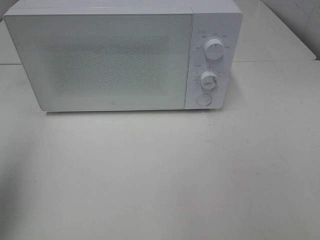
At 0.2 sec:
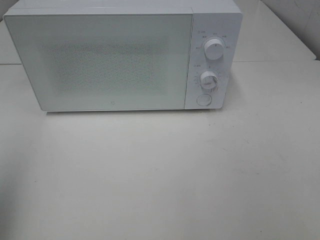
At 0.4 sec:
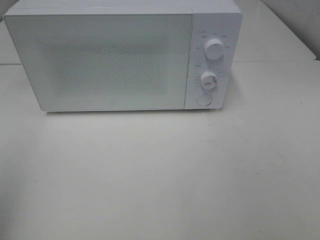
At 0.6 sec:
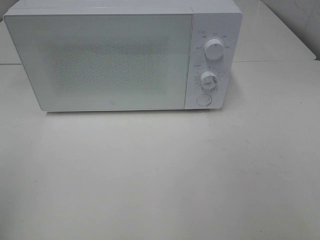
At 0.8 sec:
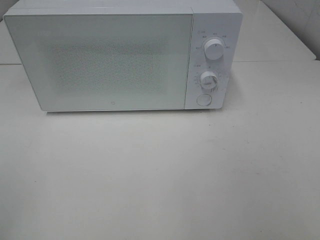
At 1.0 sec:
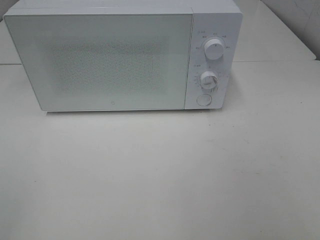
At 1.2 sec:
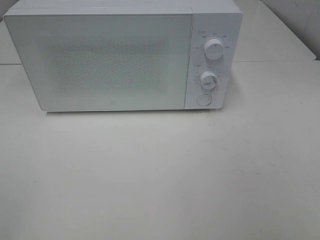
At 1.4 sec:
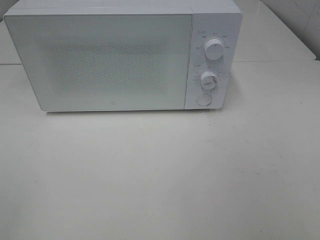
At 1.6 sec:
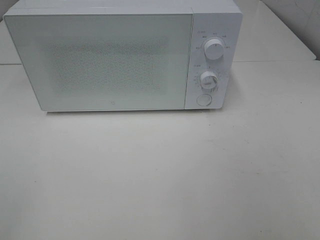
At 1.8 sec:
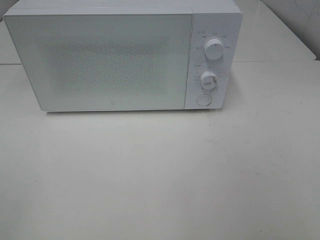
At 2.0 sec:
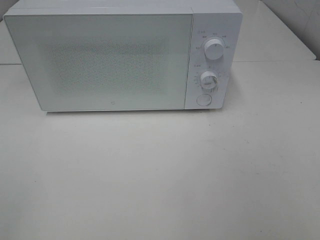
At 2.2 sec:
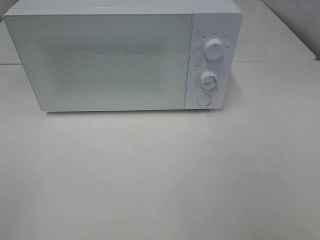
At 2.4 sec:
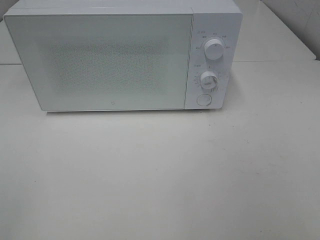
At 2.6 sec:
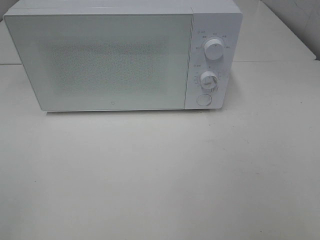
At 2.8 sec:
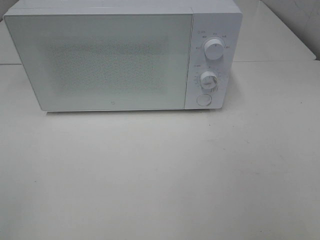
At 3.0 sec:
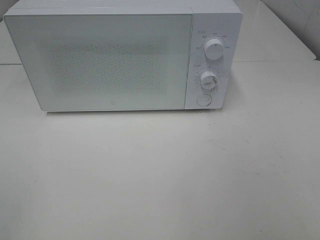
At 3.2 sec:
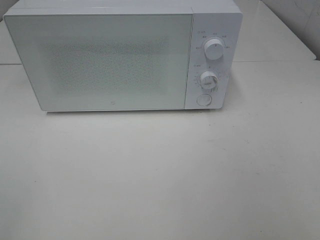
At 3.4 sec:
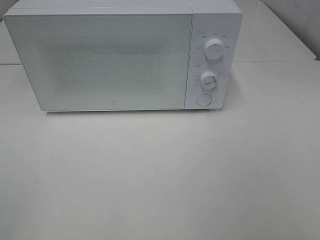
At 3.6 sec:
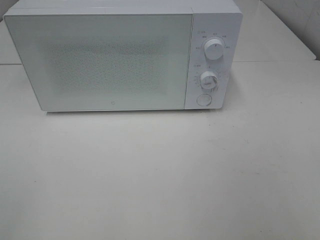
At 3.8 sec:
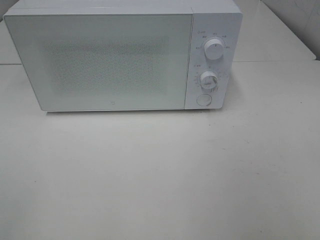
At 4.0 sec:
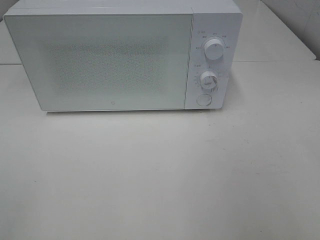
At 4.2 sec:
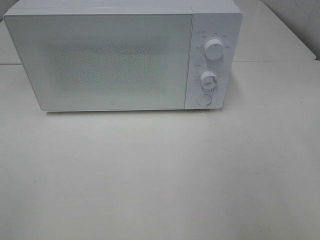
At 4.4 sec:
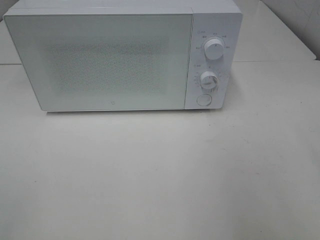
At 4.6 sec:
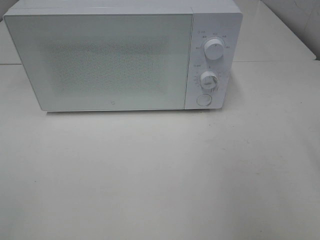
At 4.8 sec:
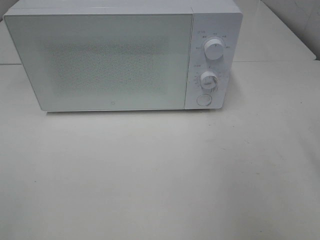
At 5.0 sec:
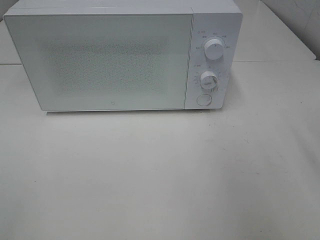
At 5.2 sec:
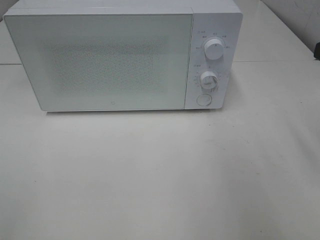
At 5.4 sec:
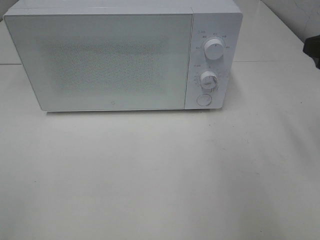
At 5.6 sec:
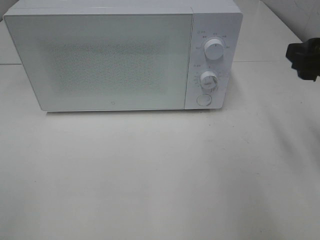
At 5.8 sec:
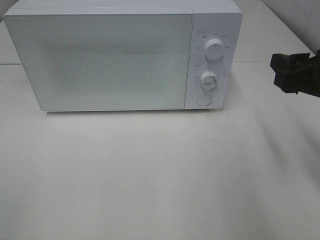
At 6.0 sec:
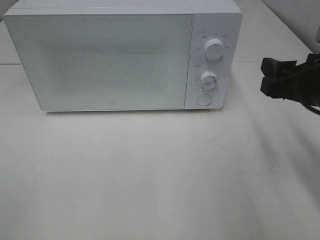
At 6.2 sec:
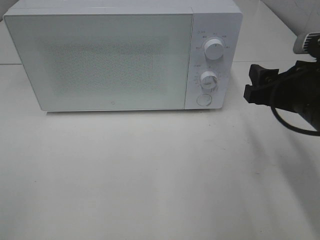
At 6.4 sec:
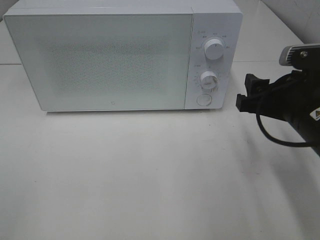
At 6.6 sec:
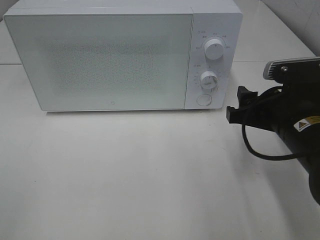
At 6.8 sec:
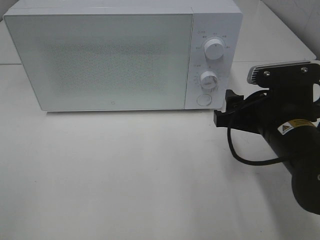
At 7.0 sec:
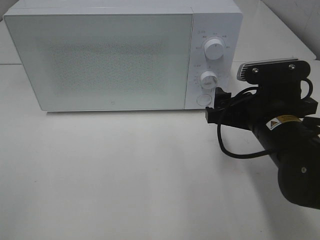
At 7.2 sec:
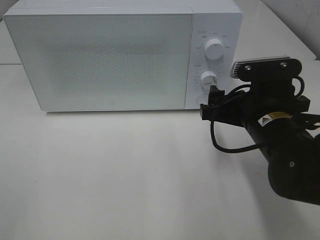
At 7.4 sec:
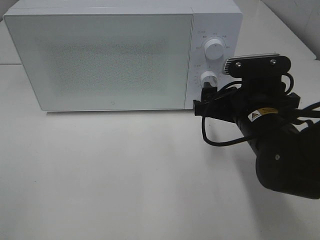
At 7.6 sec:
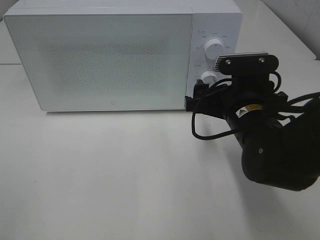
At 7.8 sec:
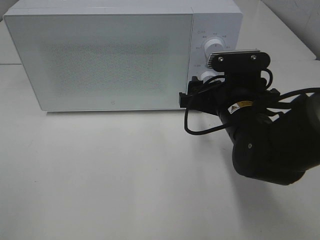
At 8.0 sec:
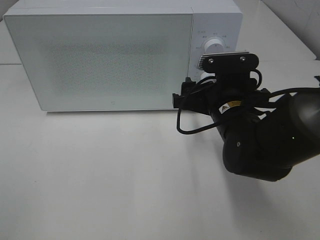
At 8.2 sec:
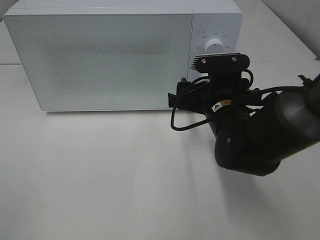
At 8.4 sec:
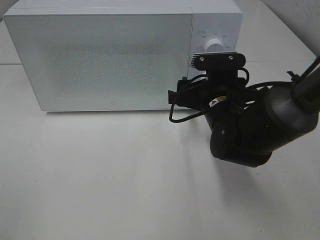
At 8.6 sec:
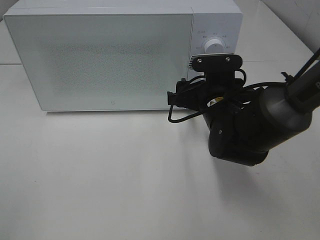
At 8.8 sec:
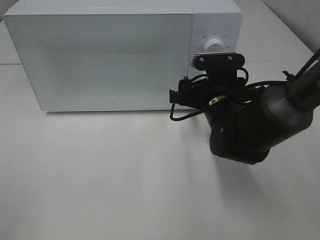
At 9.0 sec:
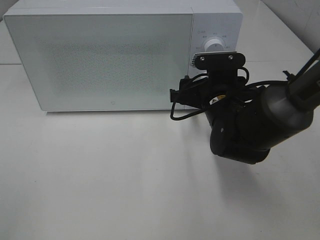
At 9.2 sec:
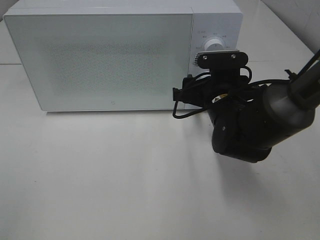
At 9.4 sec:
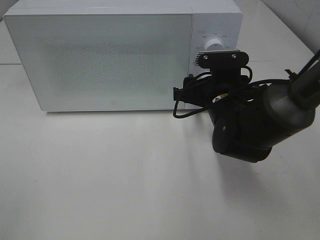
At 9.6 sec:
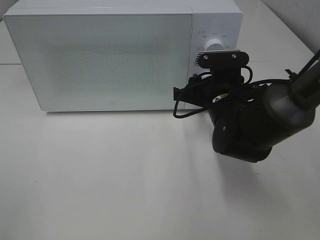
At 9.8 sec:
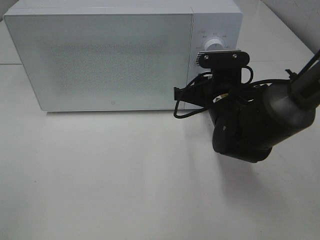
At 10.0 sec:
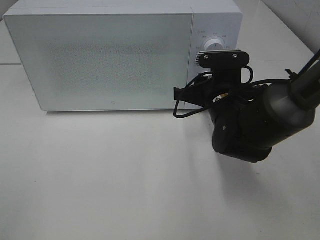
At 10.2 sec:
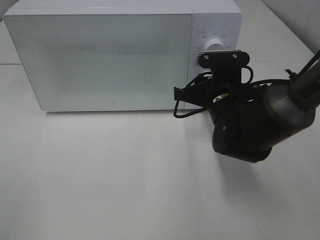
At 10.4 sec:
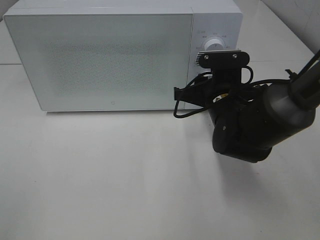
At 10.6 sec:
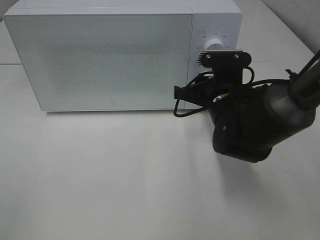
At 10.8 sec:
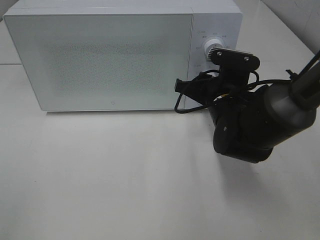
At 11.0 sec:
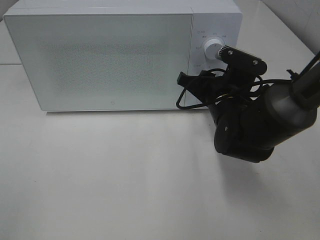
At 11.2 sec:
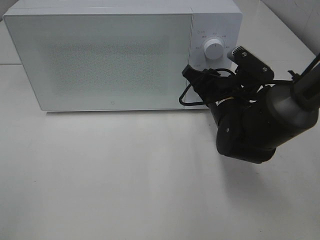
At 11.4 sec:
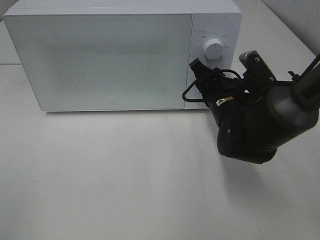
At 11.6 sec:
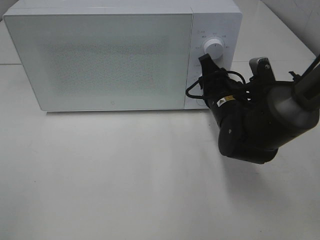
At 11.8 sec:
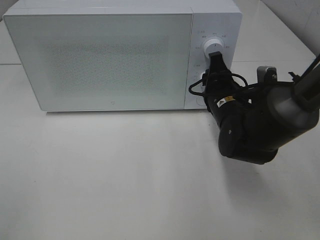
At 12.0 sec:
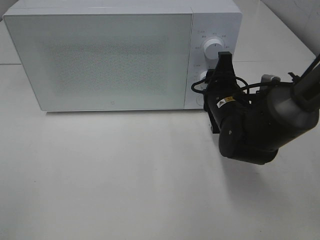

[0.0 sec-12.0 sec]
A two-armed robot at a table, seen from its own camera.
Task of the whole recording: Heat Sandwich.
0.0 sec to 1.6 sec: The left gripper is displaced backward by approximately 15 cm.
1.6 sec to 3.0 sec: Both grippers stay put.
4.4 sec to 6.0 sec: The right gripper is displaced forward, downward and to the left by roughly 15 cm.
6.0 sec to 7.6 sec: The right gripper shifts about 10 cm to the left and downward.
7.6 sec to 9.0 sec: The right gripper travels forward by about 5 cm.
9.0 sec to 10.4 sec: The right gripper closes.

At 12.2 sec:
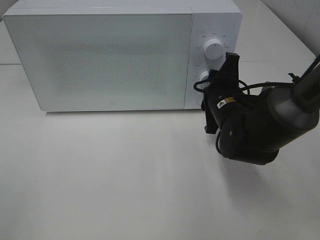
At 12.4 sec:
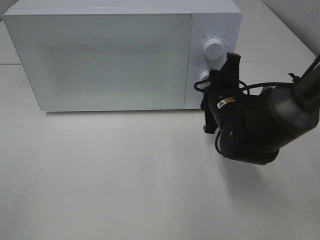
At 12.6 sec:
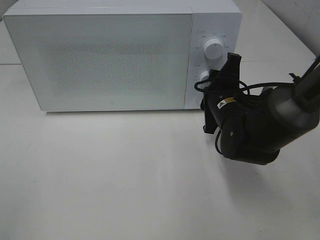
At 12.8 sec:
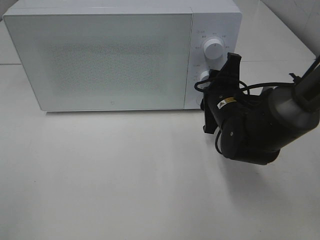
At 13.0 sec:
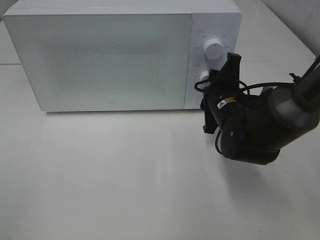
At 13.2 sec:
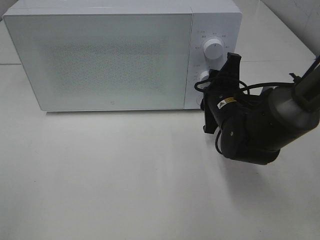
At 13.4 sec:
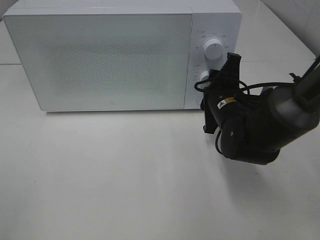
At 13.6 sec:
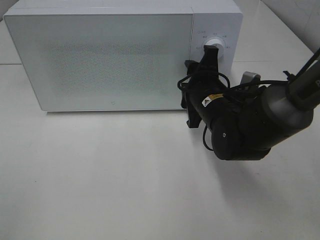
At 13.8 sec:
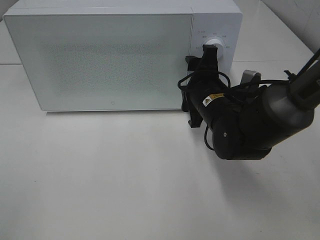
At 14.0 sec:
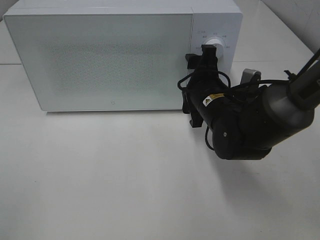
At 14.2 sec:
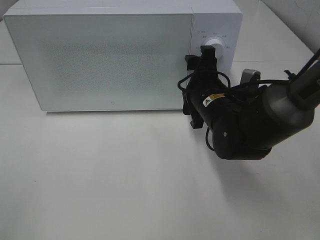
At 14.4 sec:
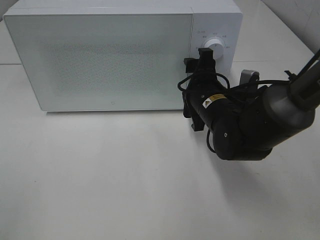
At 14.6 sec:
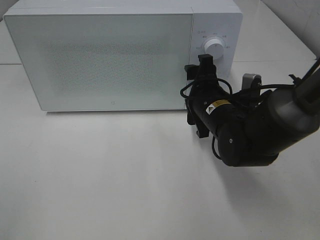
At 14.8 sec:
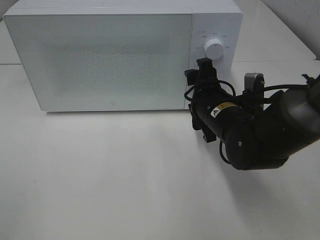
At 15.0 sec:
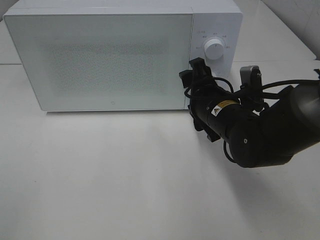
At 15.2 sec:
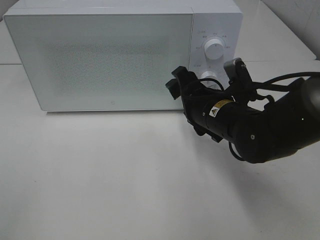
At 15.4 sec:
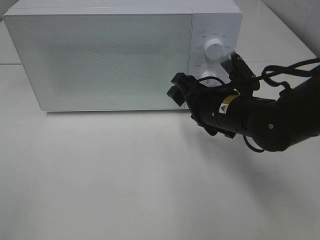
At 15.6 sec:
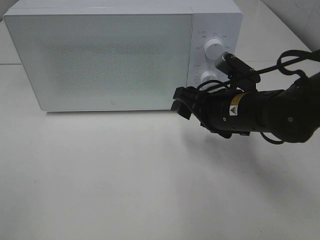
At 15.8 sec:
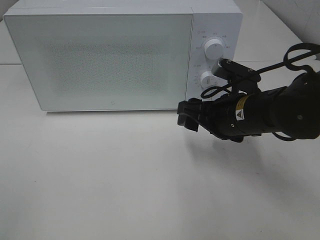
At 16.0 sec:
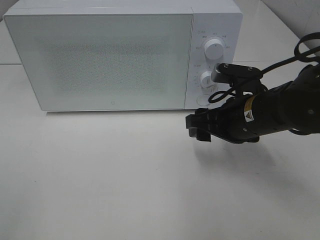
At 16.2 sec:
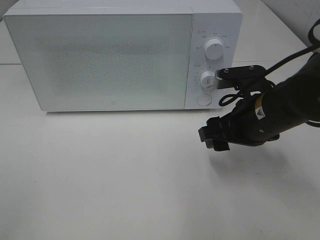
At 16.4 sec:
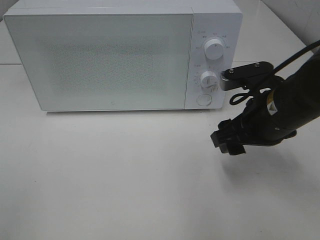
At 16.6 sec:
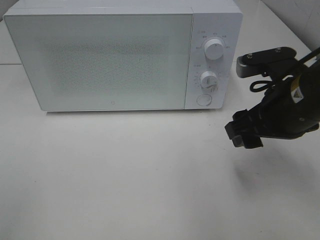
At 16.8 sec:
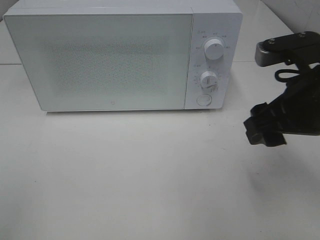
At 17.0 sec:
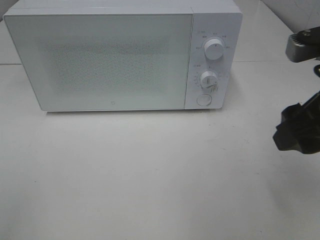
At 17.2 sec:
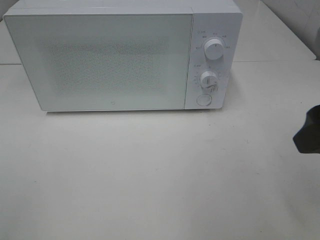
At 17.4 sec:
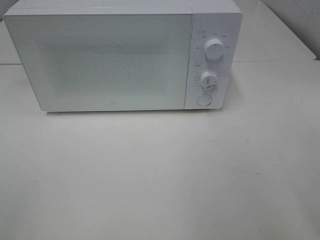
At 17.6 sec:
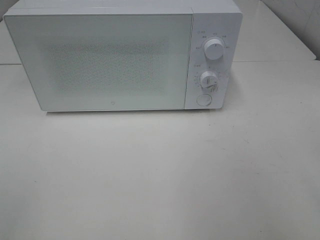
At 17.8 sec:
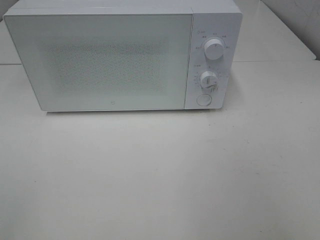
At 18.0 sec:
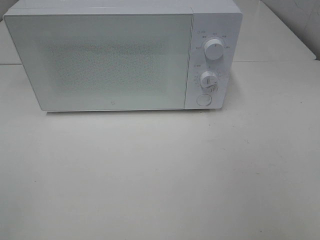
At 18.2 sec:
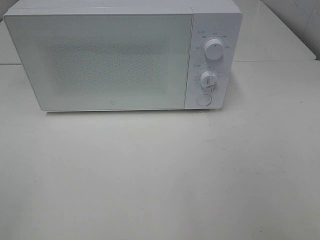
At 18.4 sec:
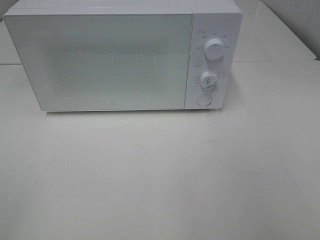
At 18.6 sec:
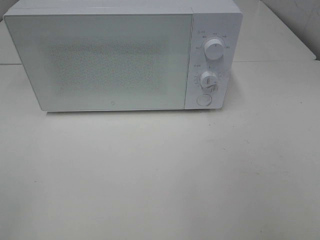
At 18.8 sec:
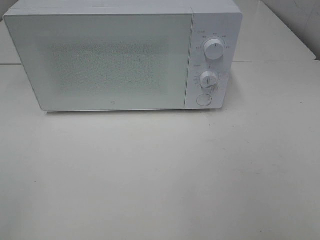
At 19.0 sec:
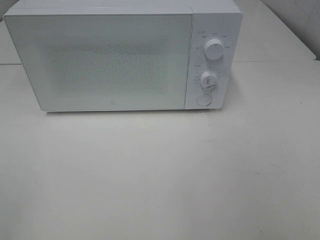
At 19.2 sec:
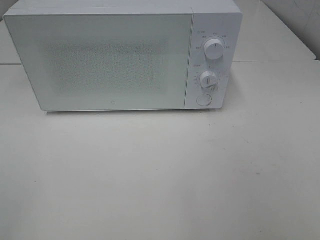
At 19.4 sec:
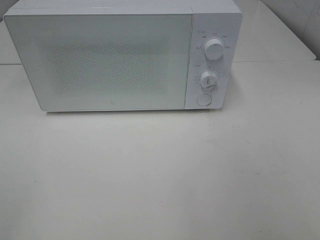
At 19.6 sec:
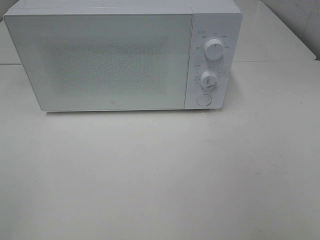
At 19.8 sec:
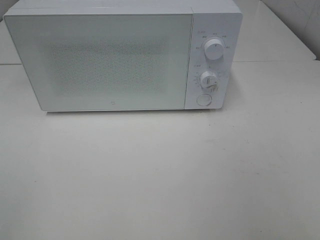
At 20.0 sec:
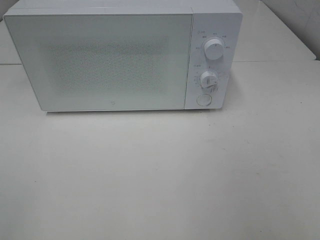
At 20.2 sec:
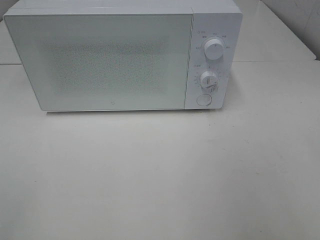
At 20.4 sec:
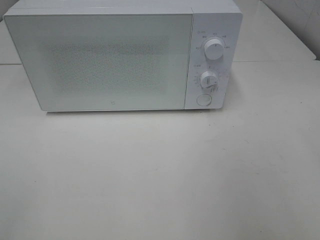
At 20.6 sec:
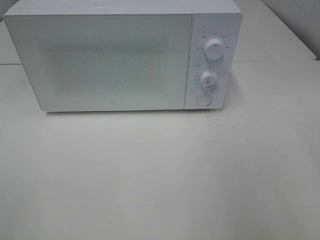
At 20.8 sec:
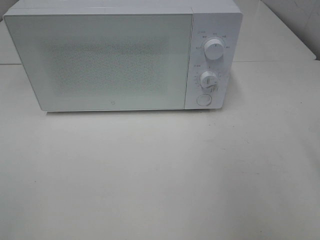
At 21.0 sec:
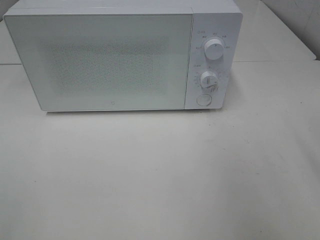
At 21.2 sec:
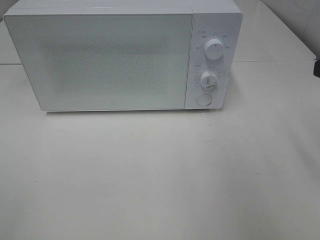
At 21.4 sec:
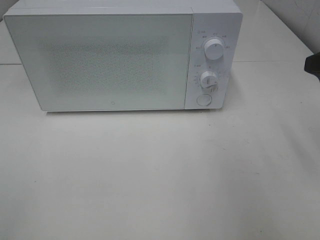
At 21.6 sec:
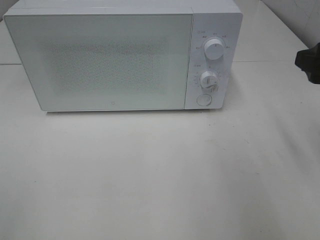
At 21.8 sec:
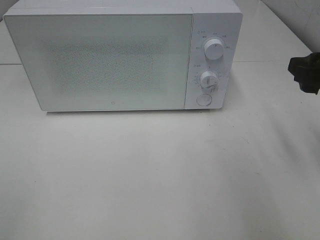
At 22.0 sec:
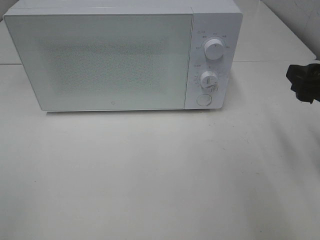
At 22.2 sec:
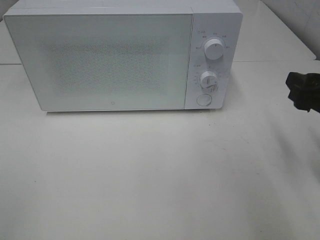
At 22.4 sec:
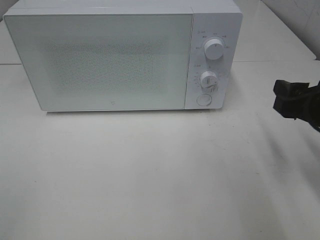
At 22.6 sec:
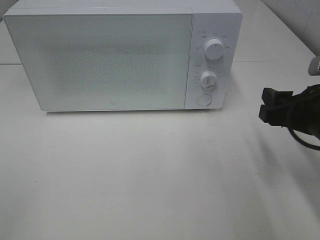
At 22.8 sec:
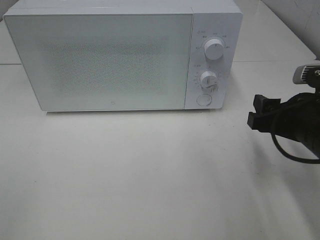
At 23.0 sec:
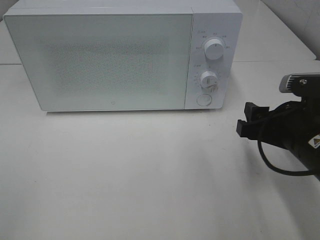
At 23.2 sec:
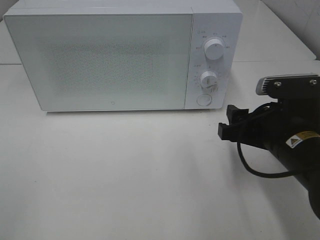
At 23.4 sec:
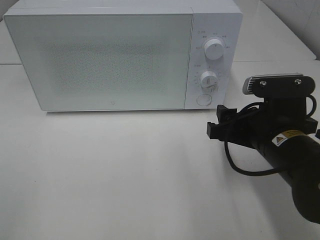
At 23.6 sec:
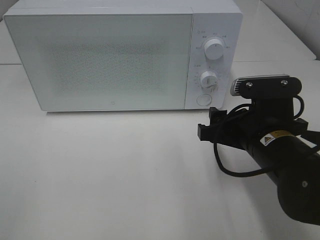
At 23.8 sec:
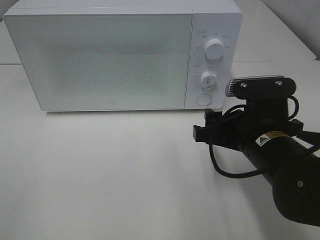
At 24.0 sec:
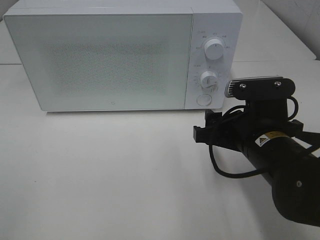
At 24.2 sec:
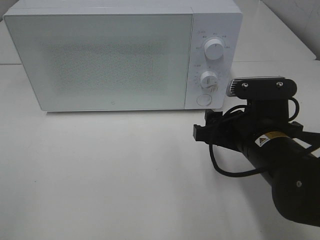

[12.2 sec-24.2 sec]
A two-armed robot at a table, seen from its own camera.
Task of the whole recording: Heat Sandwich.
Step, 12.2 sec to 14.4 sec: Right hand: twist timer button.
12.2 sec to 13.8 sec: The grippers make only small movements.
15.2 sec to 16.6 sec: The right gripper travels upward, to the right and backward by roughly 10 cm.
16.6 sec to 18.2 sec: The right gripper moves backward and to the right, some 25 cm.
21.2 sec to 22.6 sec: The right gripper goes roughly 10 cm downward.
22.6 sec to 24.2 sec: The right gripper heads to the left, covering approximately 10 cm.
